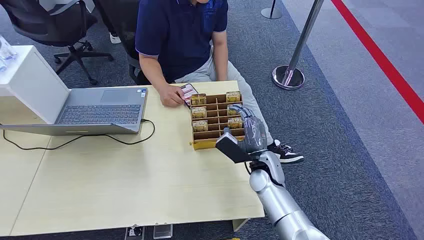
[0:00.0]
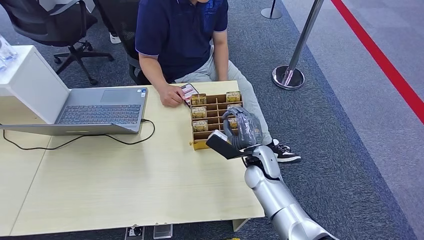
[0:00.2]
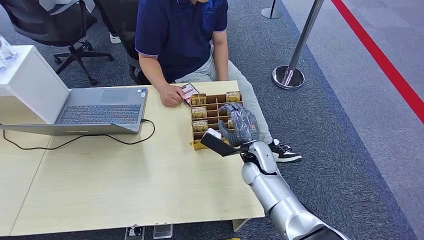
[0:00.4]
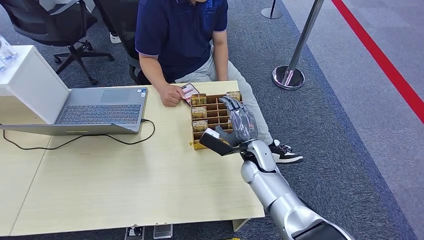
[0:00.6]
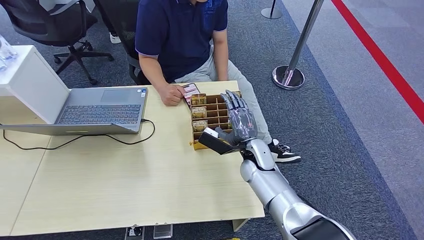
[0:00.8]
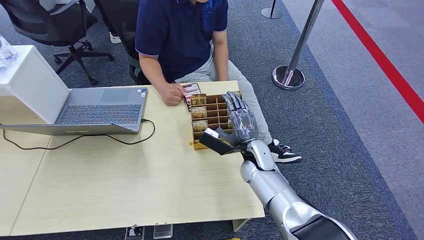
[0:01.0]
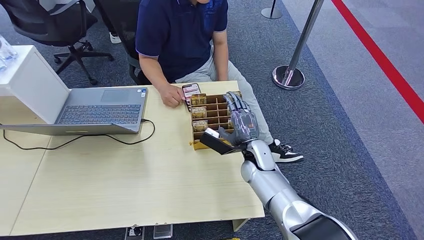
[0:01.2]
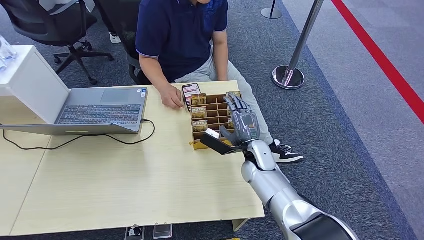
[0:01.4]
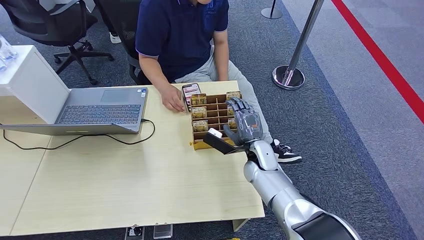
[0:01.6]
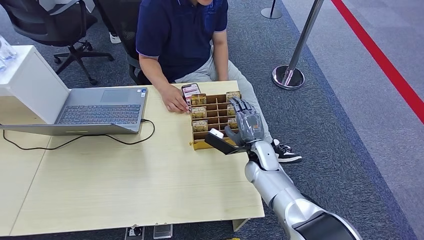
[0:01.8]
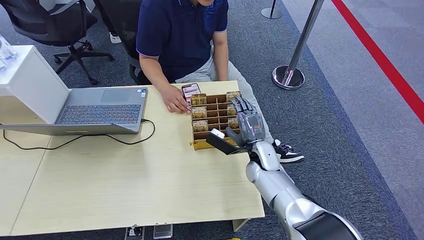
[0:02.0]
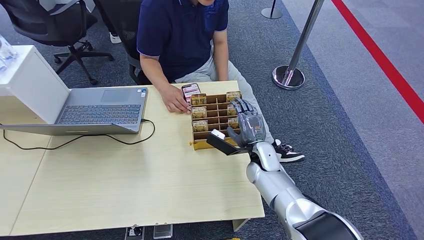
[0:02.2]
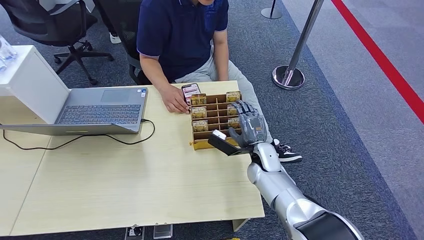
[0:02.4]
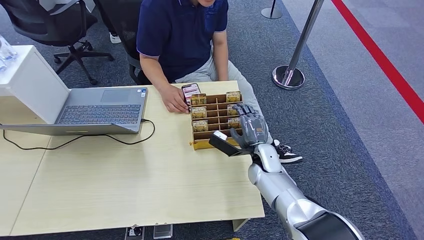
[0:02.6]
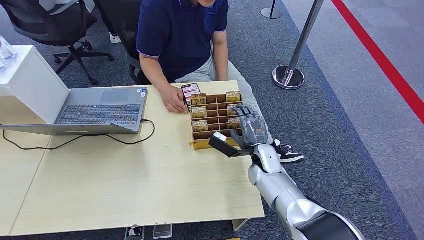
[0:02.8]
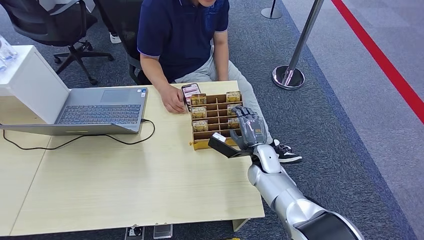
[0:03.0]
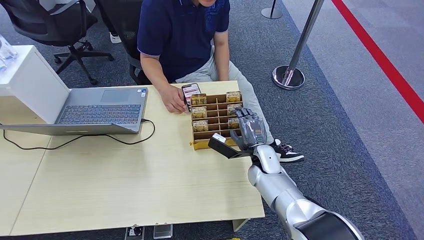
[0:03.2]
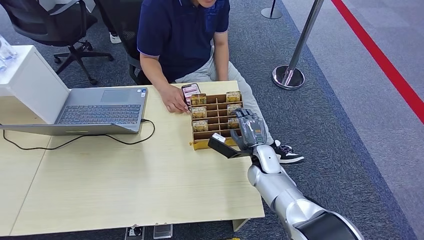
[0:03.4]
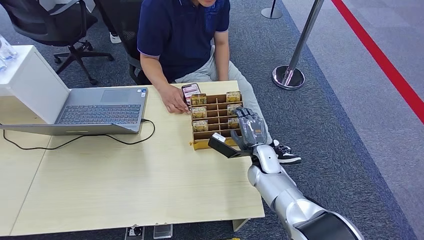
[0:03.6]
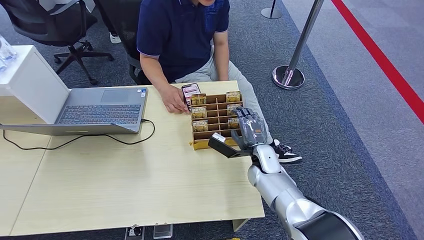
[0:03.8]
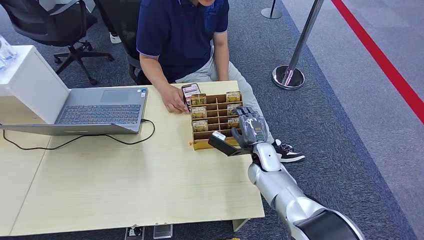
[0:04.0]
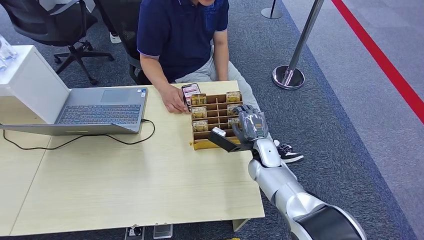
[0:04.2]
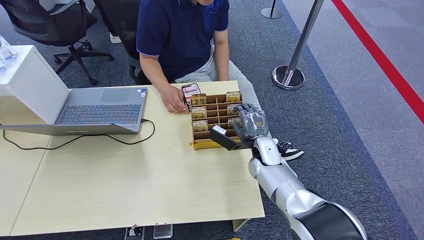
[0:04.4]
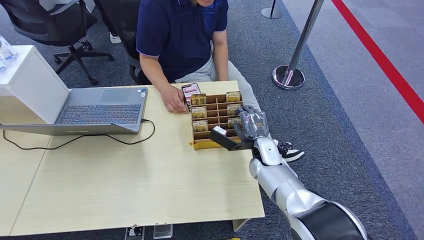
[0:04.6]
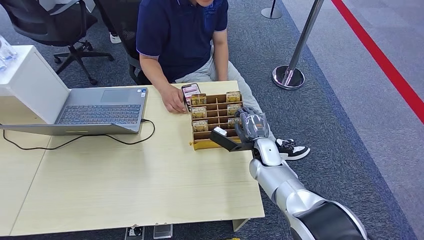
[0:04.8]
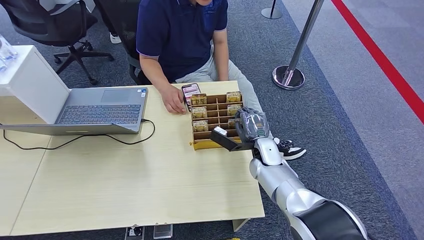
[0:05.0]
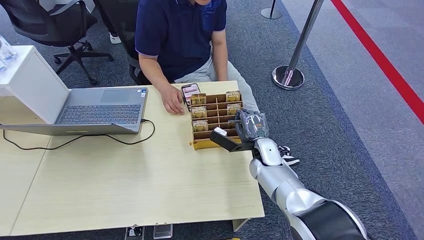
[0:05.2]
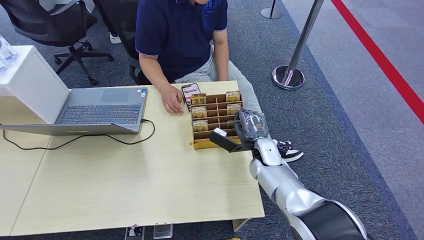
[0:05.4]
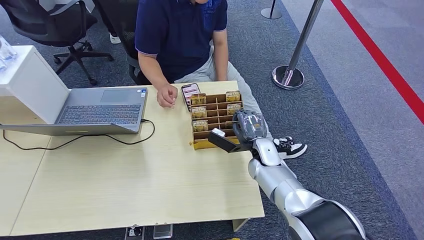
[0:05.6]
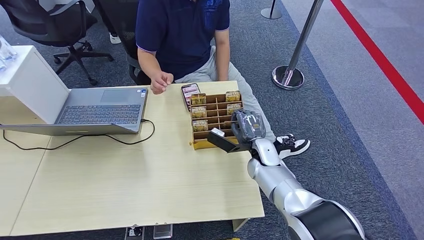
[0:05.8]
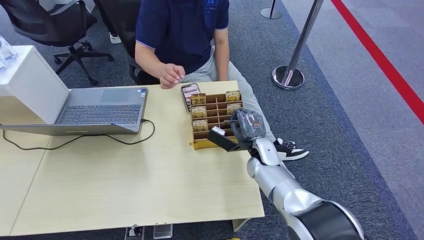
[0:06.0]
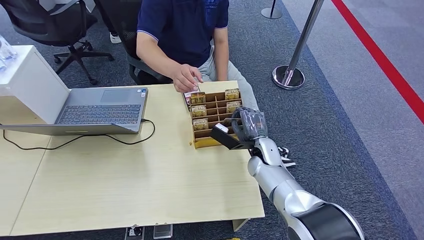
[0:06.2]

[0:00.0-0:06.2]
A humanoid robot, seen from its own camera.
Step, 0:00.0 to 0:04.8: Pick up the room card from the card holder.
Step, 0:05.0 to 0:06.2: Hand the room card to the target.
0:01.6 to 0:06.2: The hands make only small movements.
